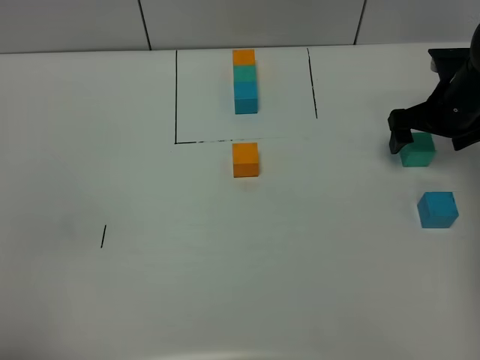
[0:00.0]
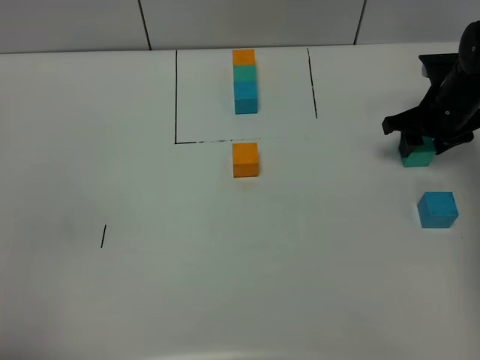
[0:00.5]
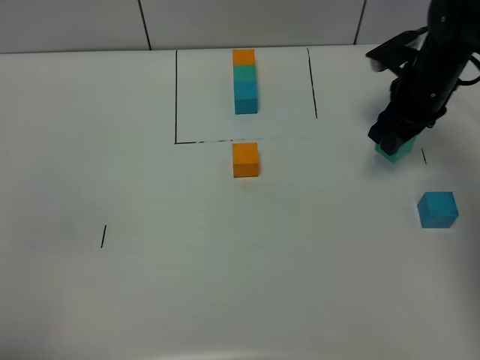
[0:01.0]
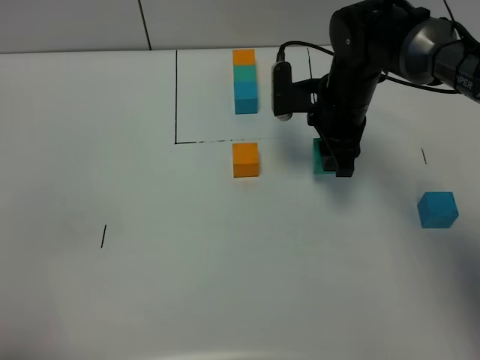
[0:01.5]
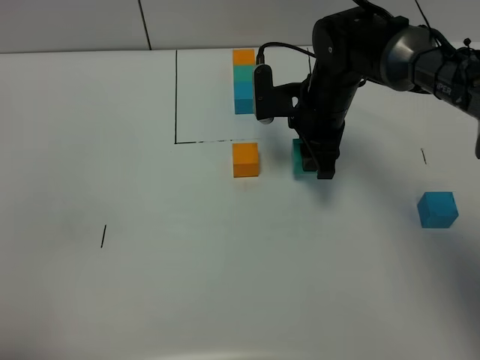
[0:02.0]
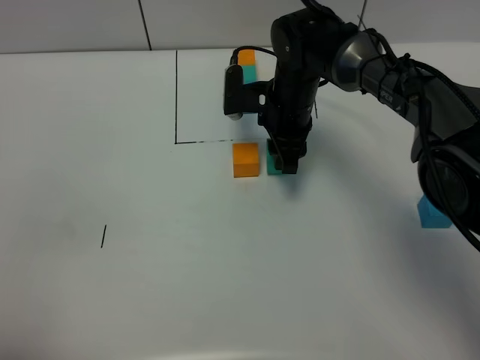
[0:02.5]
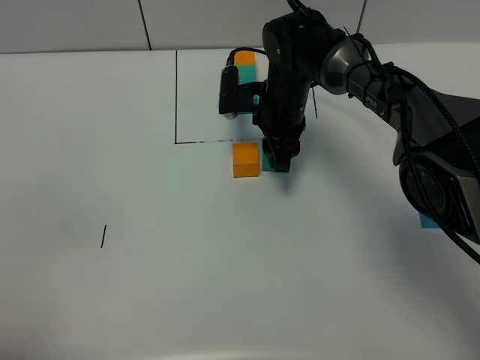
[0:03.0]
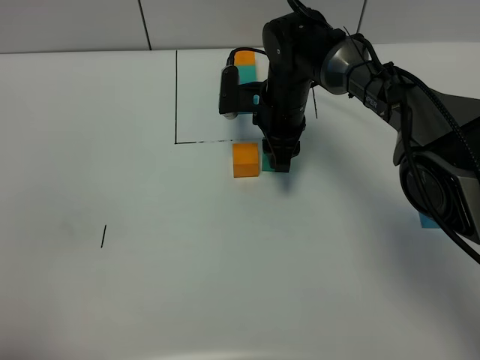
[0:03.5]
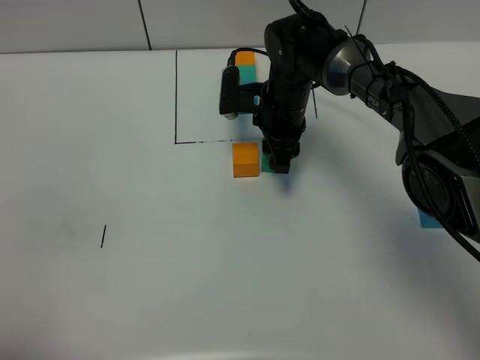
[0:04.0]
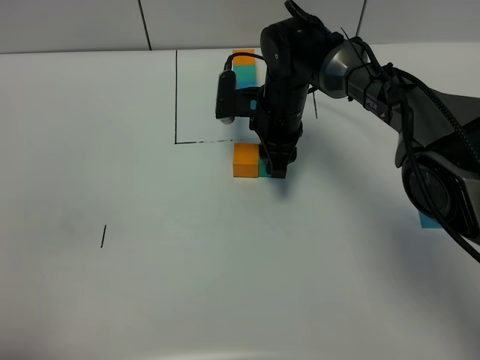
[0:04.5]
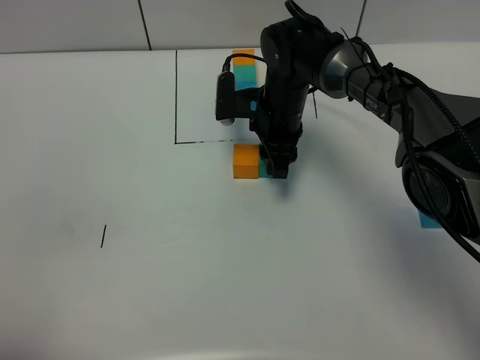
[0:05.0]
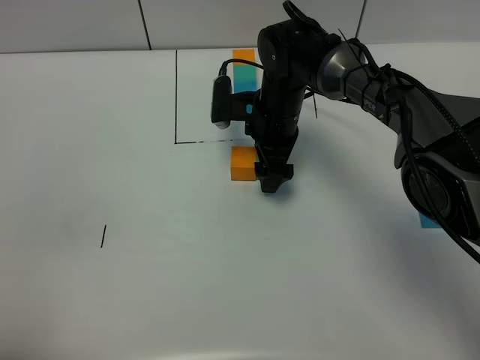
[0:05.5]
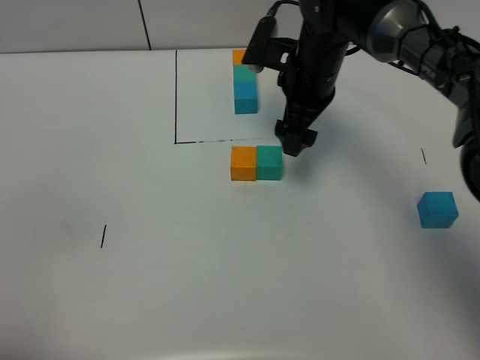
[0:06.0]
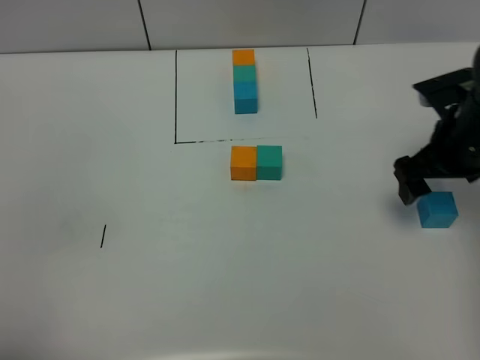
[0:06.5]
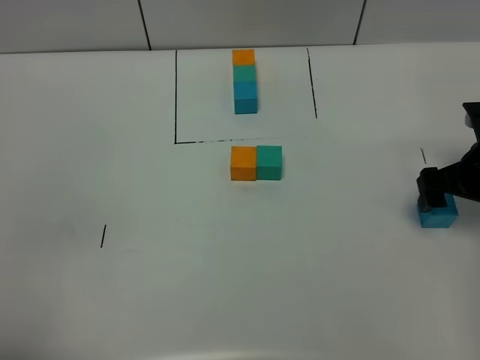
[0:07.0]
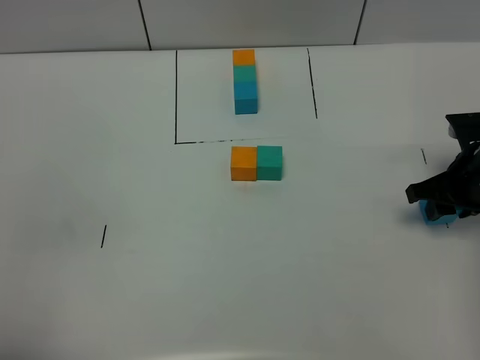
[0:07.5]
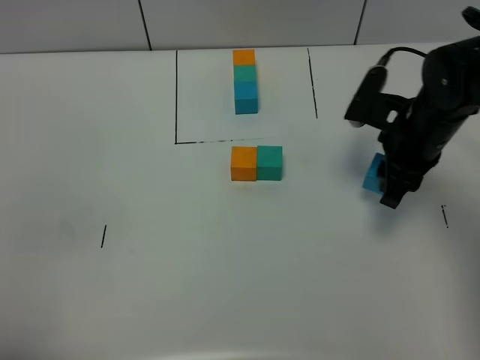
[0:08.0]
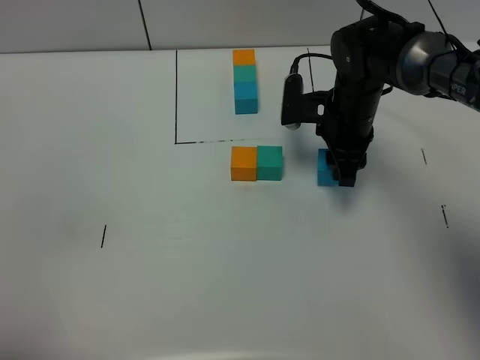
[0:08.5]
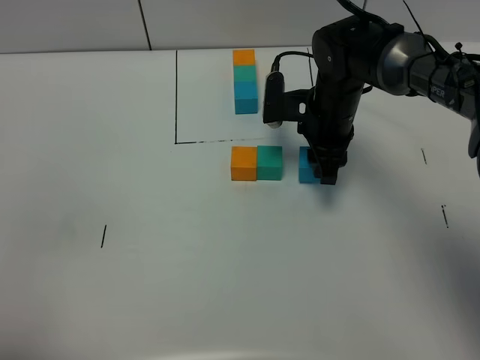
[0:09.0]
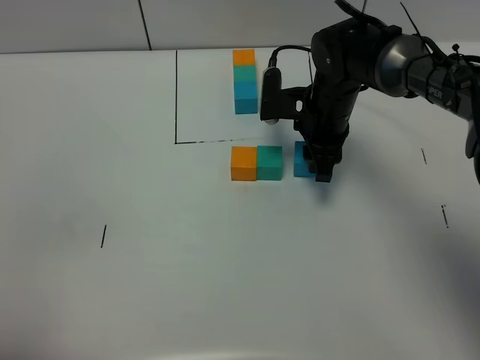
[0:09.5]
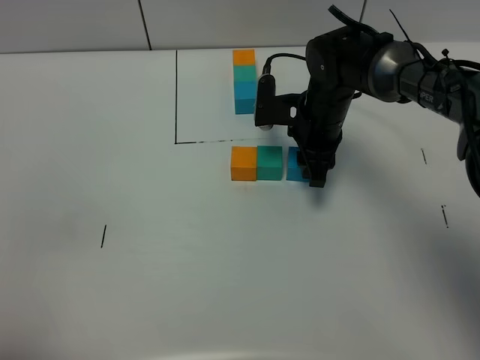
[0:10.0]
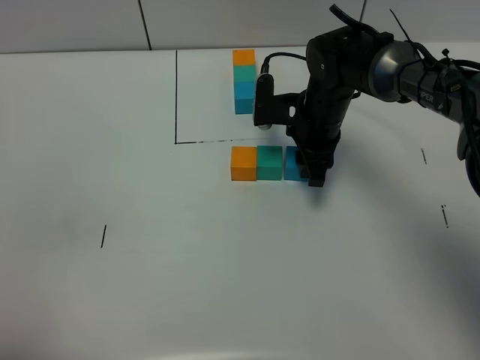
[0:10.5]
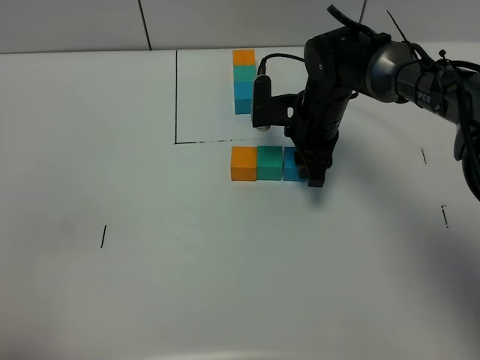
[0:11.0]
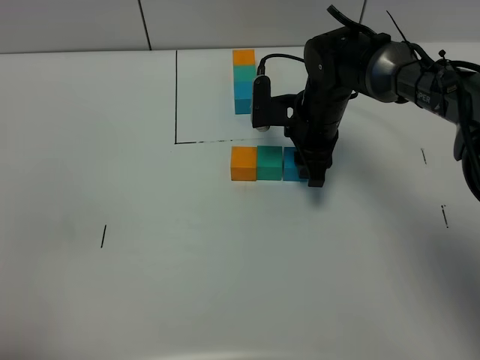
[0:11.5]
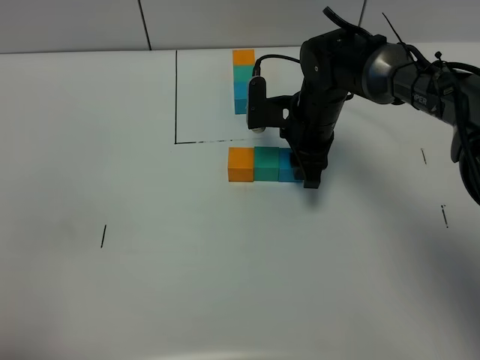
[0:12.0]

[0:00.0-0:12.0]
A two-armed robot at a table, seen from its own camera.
Task of the whole recording: According to the building block template in front, assemble the scattered blocks together.
Step, 0:00.0 to 0:05.5: Put the green build block on the right of the orange build block.
0:00.0 to 0:02.0: The right gripper goes roughly 20 cm to the left, and closes its fingers.
0:02.0 to 0:04.0: The right gripper ends up some 5 cm from where it was.
0:04.0 to 0:06.0: The right gripper heads upward, covering approximately 5 cm, and opens its fingers.
0:06.0 to 0:08.0: The right gripper heads to the right and backward, covering roughly 15 cm, and closes up.
0:08.0 to 0:10.0: The right gripper travels to the left and forward by some 10 cm.
0:10.0 to 0:12.0: The two grippers keep their place.

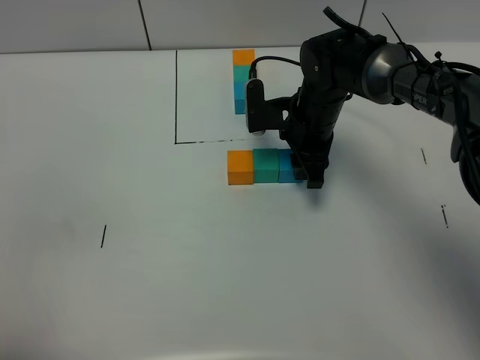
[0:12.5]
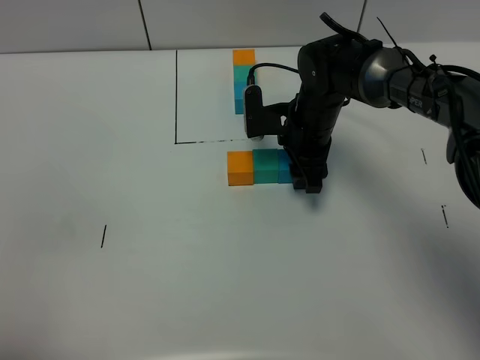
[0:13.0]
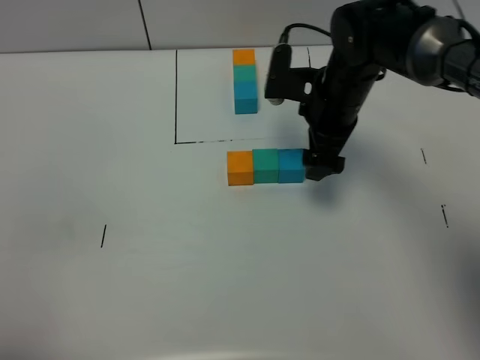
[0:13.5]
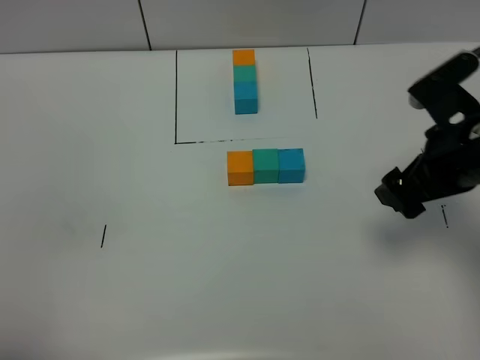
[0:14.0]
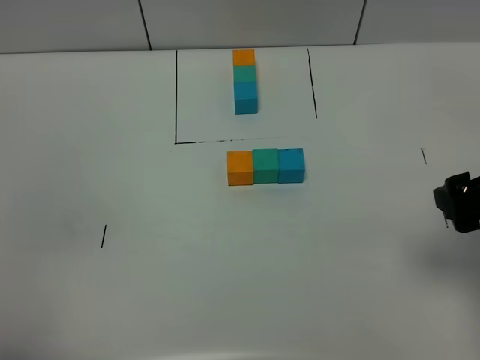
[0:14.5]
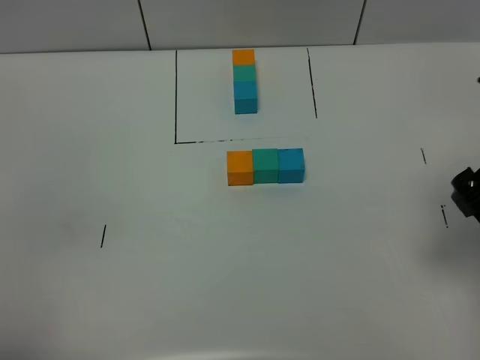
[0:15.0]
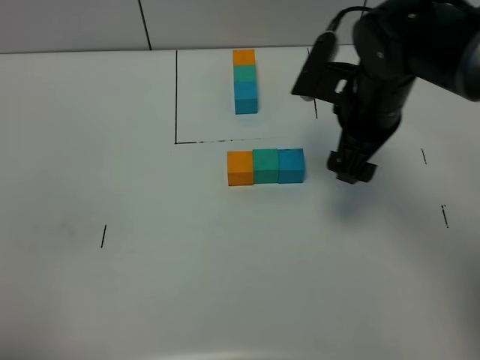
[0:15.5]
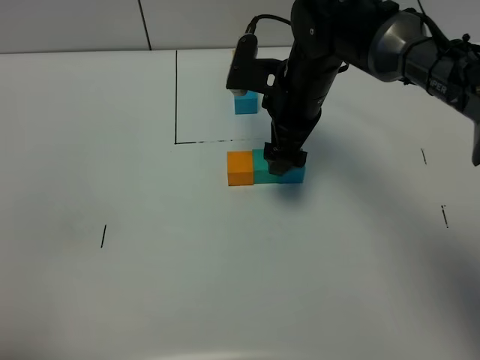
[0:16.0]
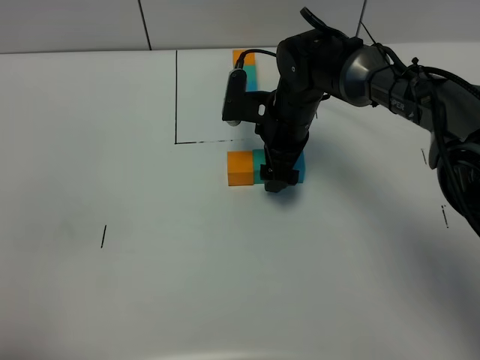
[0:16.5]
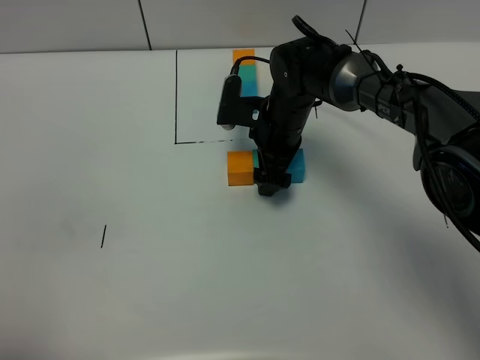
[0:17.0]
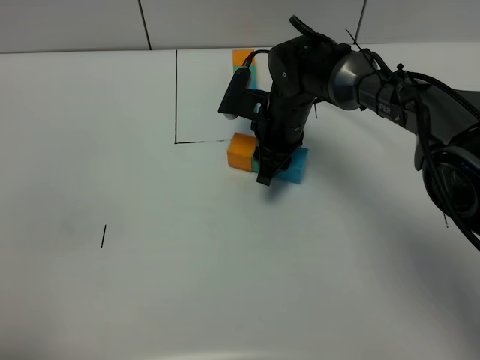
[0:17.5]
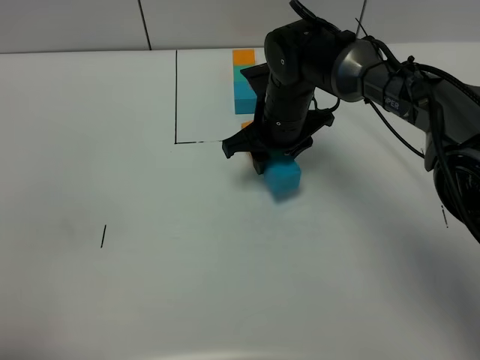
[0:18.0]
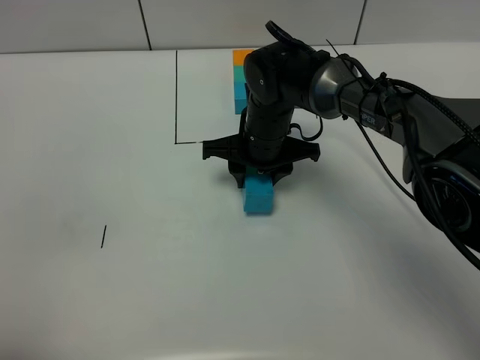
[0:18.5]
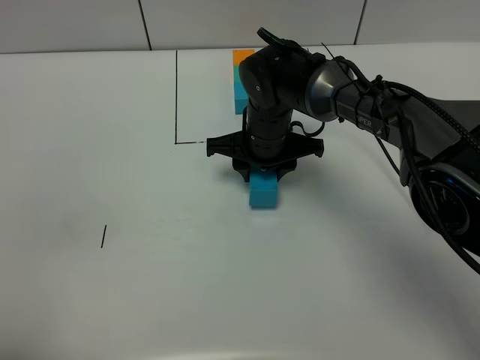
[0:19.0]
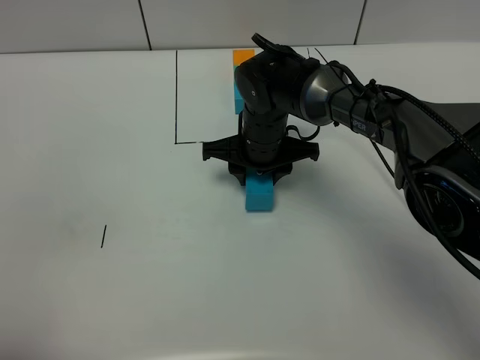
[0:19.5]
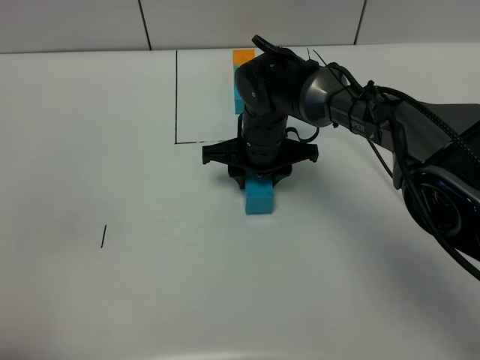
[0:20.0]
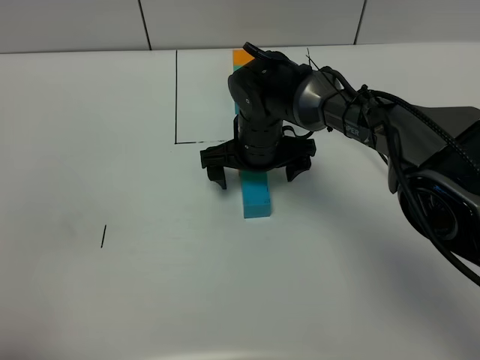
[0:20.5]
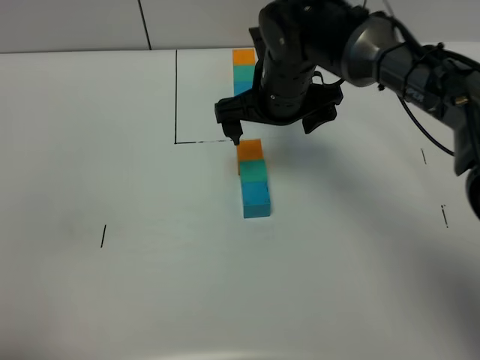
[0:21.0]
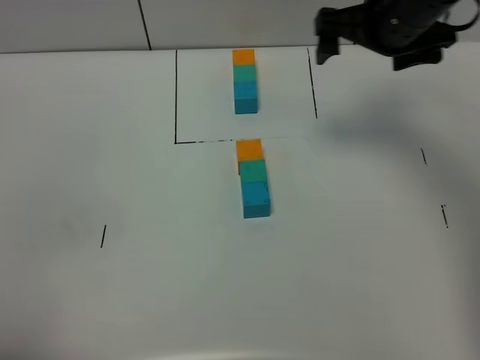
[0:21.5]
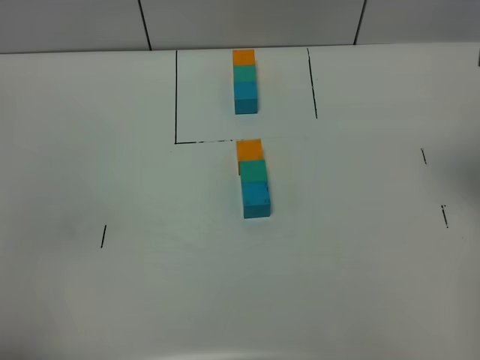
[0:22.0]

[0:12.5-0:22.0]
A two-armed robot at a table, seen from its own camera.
Task of the whole recording: According to the building block template in front, assemble the scattered blocks together.
Step, 0:13.5 to 0:20.0: move the build block to the center of the table.
0:12.5 to 0:14.5: The right gripper goes roughly 30 cm backward, to the right and upward, and opens.
0:14.5 to 0:16.5: The right gripper is displaced forward, to the left and downward by some 35 cm.
0:16.5 to 0:18.0: The right gripper closes up.
0:18.0 to 0:20.0: The grippers make only small movements.
0:20.0 to 0:22.0: The right gripper is displaced to the right and upward by some 35 cm, and opens its fingers.

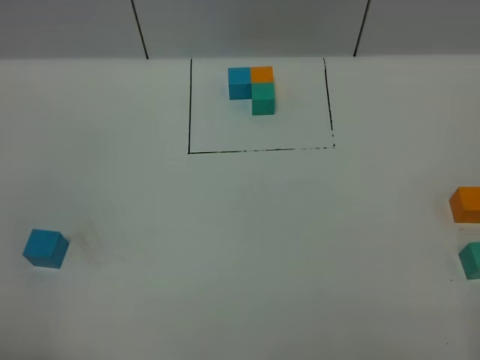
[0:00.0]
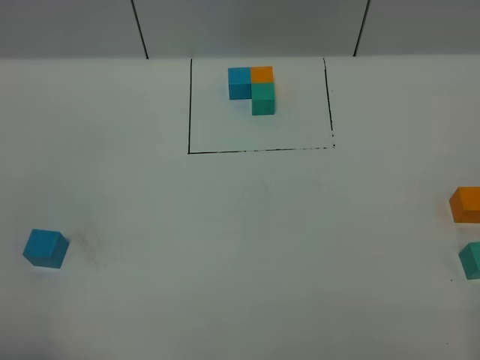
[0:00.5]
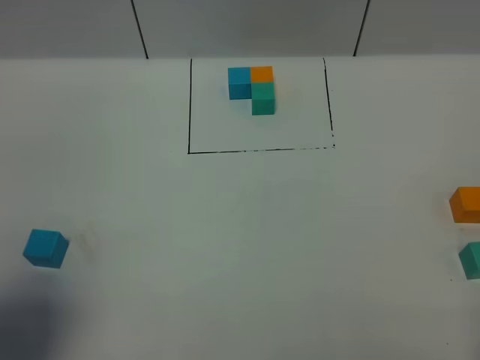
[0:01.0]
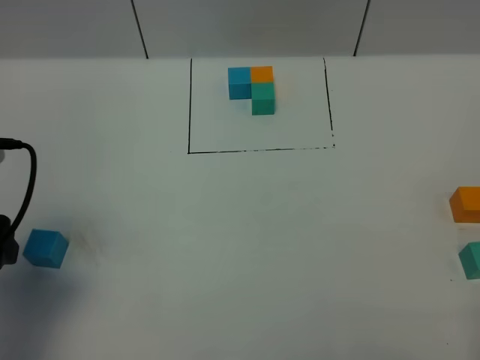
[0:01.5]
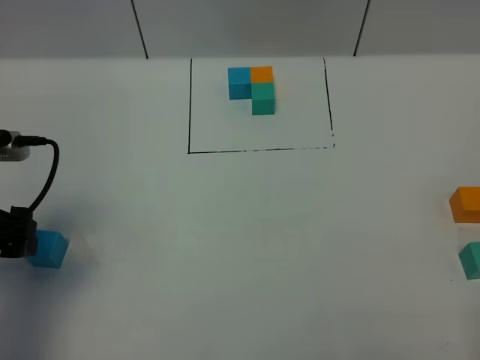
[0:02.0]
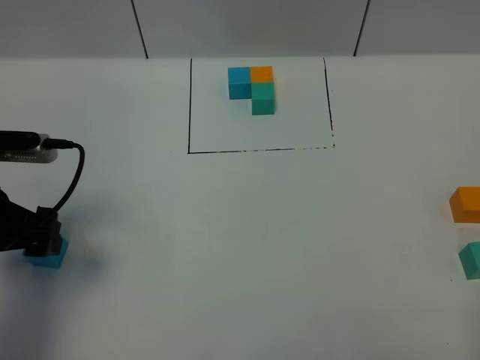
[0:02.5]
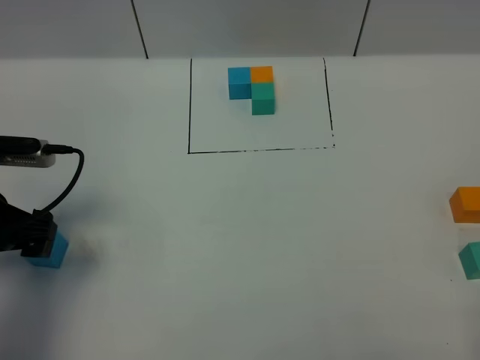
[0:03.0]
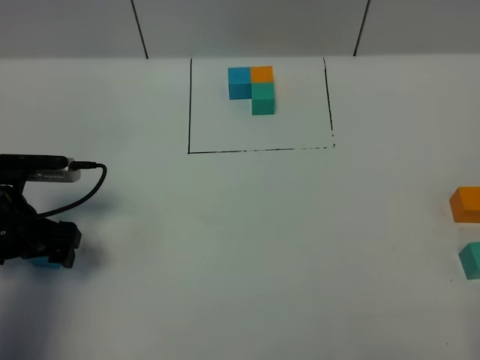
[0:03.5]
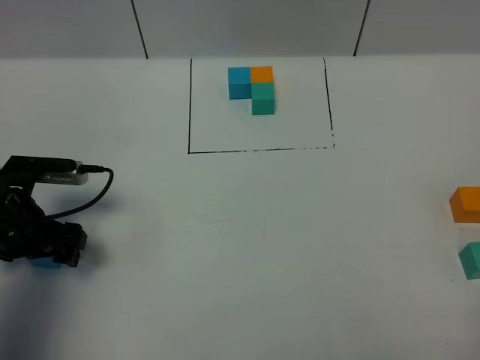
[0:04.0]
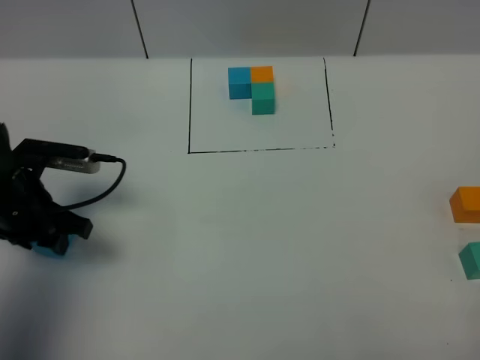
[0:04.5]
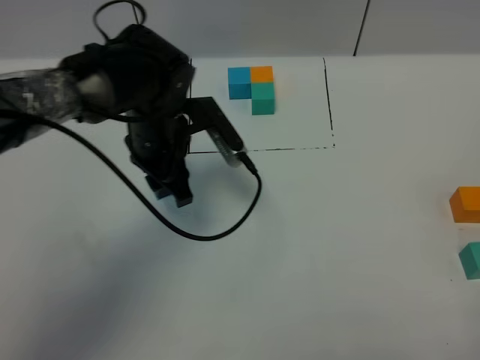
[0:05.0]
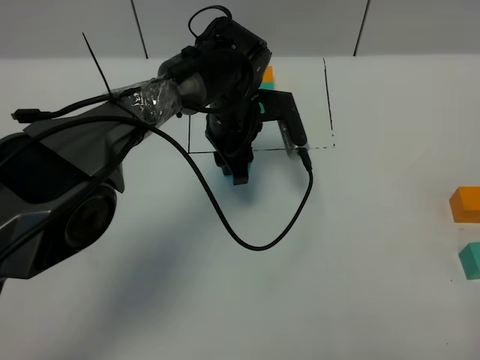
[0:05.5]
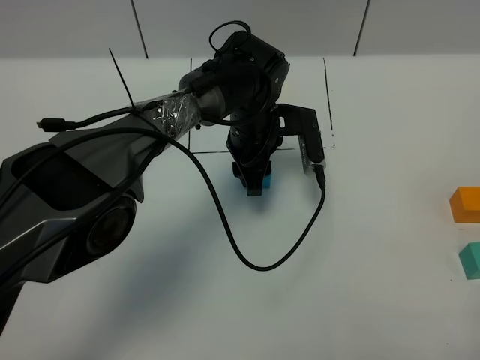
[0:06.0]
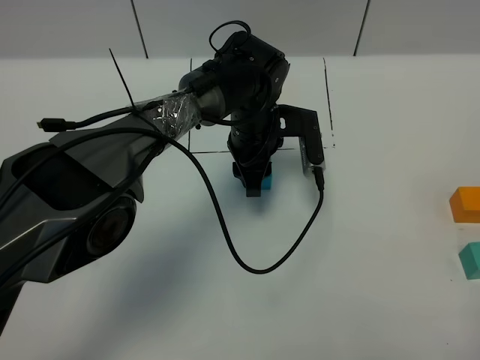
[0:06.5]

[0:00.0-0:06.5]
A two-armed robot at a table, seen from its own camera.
Task of the whole recording: According to the building block template in front, assemble the scattered blocks together.
0:00.0 to 0:02.0: The left gripper goes some 20 cm forward.
0:02.0 to 0:04.5: The left gripper is displaced downward and forward by approximately 10 cm, and closes.
0:04.5 to 0:06.5: The left gripper shifts roughly 30 cm to the right and forward.
